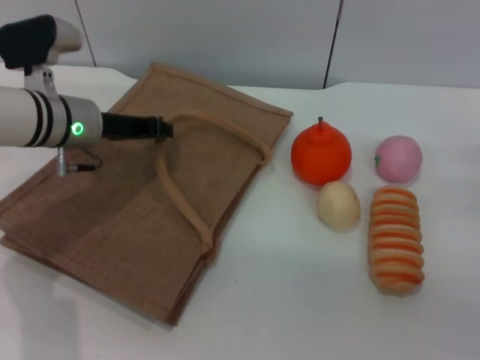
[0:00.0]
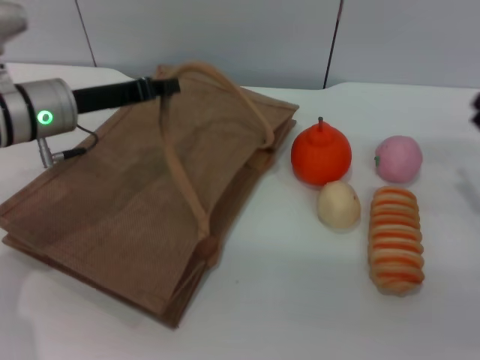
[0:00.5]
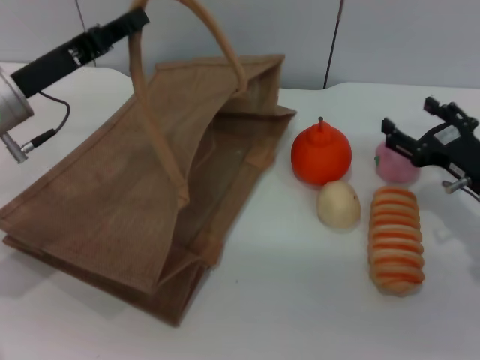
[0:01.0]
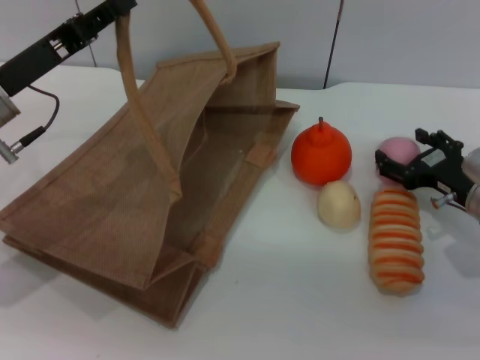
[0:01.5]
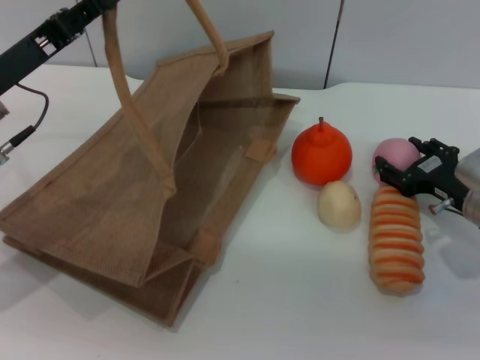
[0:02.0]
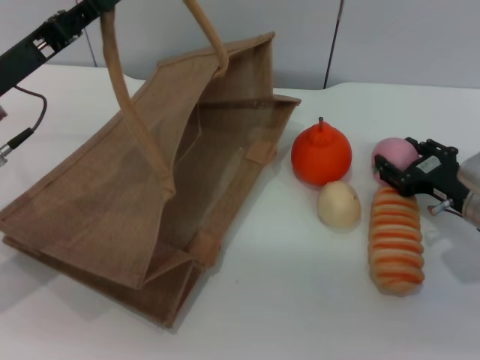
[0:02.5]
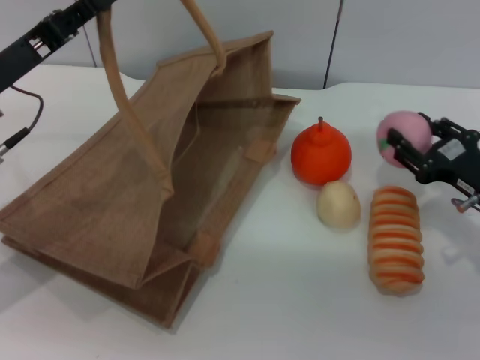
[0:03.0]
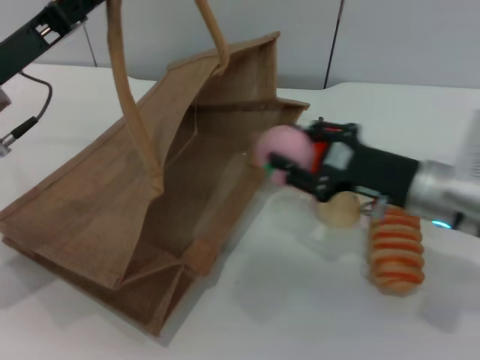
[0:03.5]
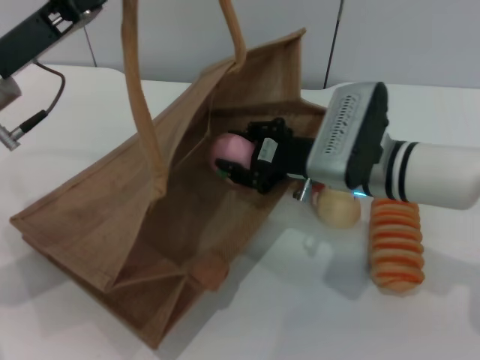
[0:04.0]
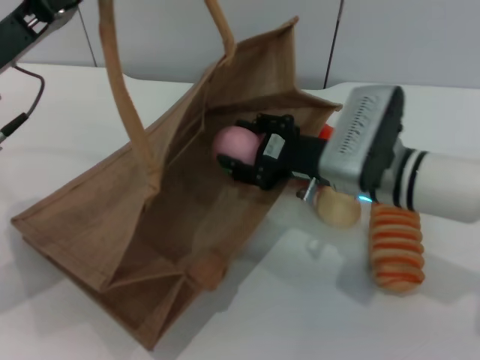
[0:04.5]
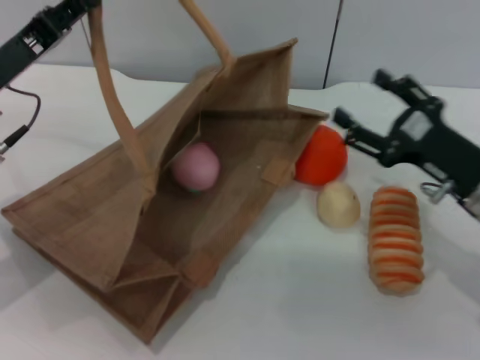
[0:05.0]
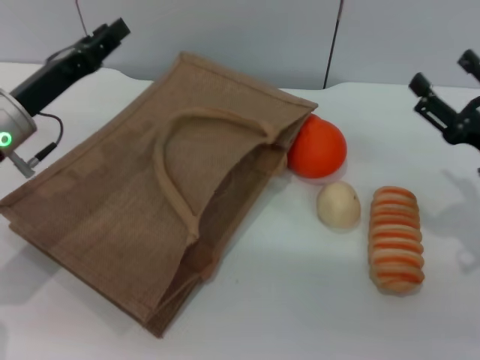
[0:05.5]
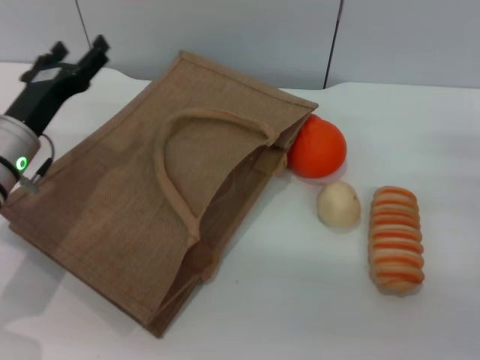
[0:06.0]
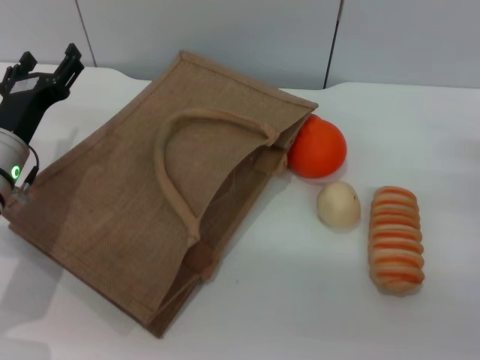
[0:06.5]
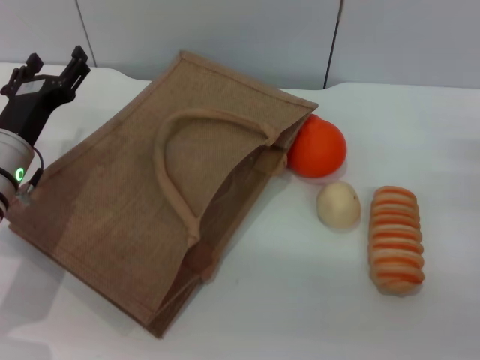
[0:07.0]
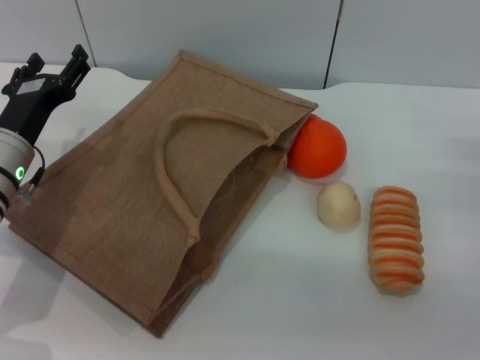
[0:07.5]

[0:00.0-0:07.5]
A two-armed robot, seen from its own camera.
Task of the whole recording: pick up the peach from the table and place it in the brown handbag.
Step, 0:01.0 to 0:03.0: Pick up the peach with the right gripper.
Step, 0:03.5 to 0:04.5: Place the peach into the woven bag with the right gripper.
Step, 0:05.0 to 0:05.5: Lower the woven bag with the left gripper to close it.
0:00.0 to 0:02.0: The left gripper is displaced backward and to the left by roughly 10 cm. The right gripper moves to the left, about 10 cm.
0:02.0 to 0:04.0: The right gripper shifts some 15 cm to the left, and closes its fingers.
0:04.0 to 0:05.5: The left gripper travels downward by about 5 cm. Meanwhile the right gripper shifts roughly 15 cm to the right, and opens up.
0:05.5 to 0:07.5: The left gripper opens. Meanwhile the right gripper goes approximately 5 cm to the right.
